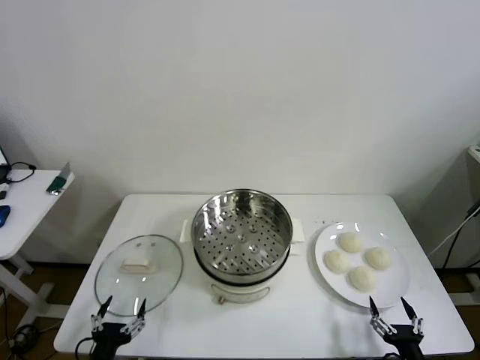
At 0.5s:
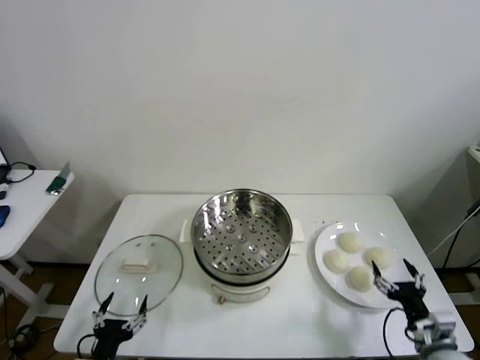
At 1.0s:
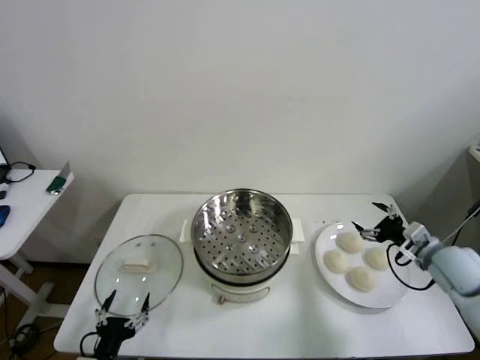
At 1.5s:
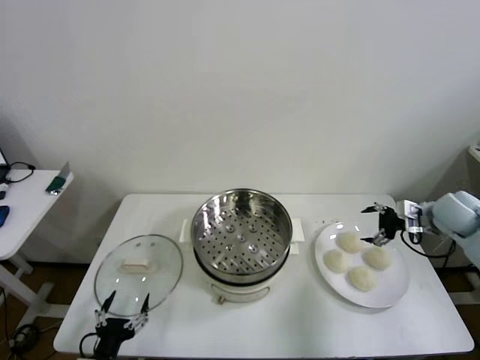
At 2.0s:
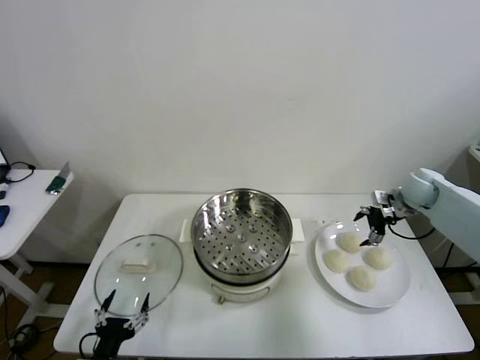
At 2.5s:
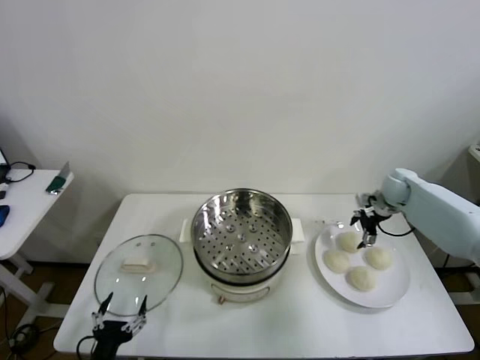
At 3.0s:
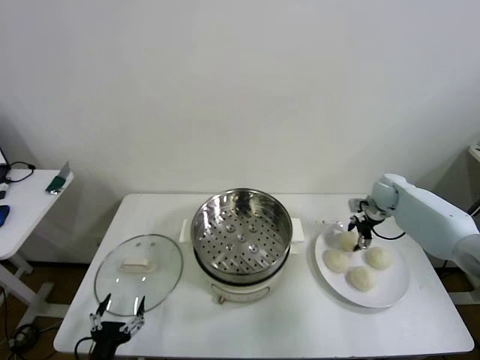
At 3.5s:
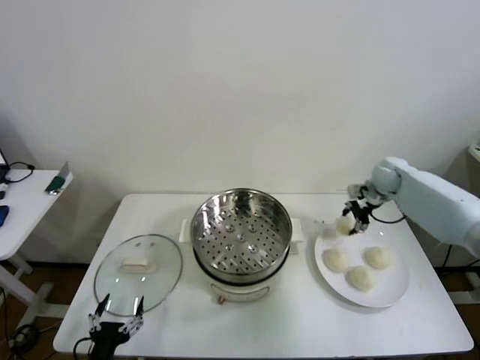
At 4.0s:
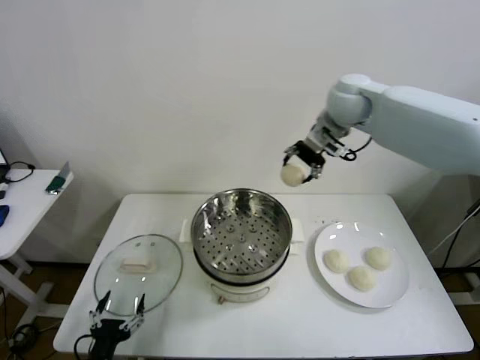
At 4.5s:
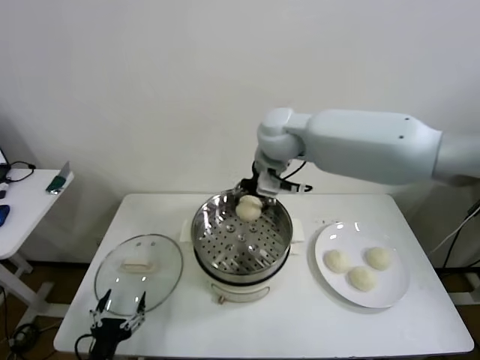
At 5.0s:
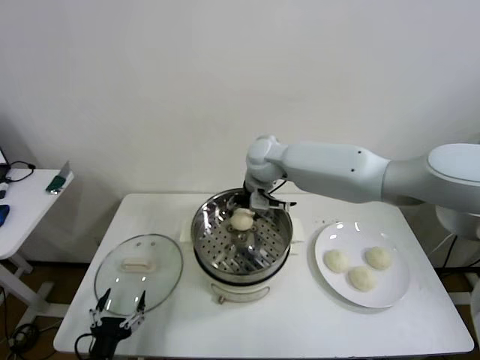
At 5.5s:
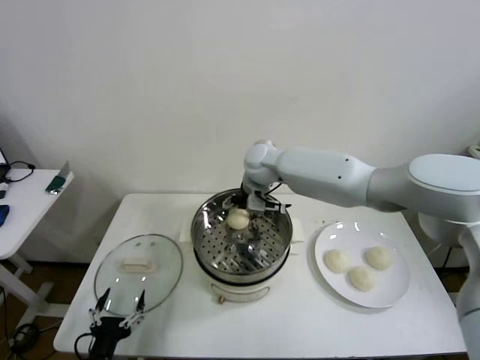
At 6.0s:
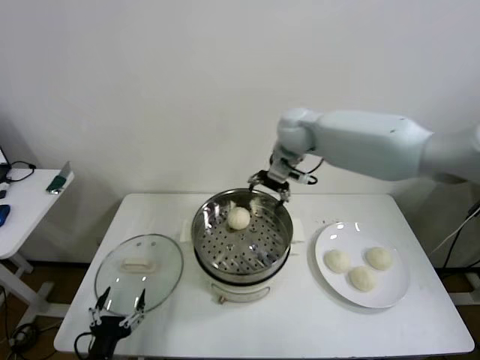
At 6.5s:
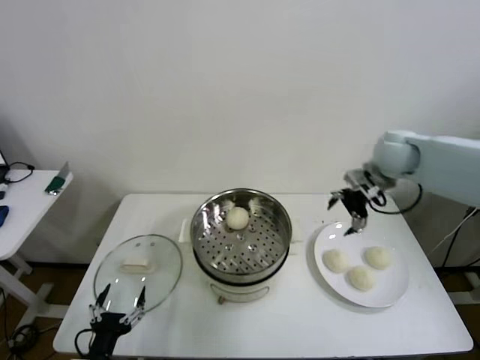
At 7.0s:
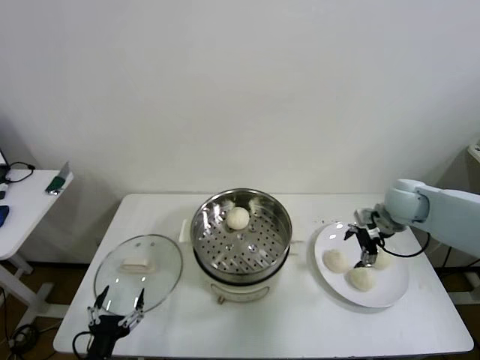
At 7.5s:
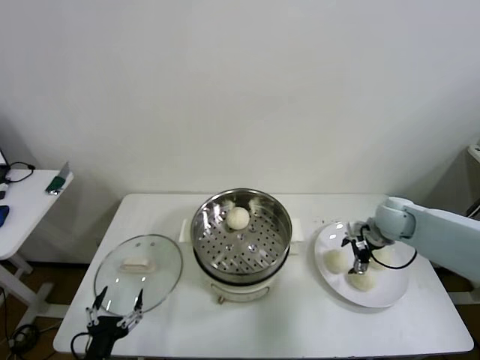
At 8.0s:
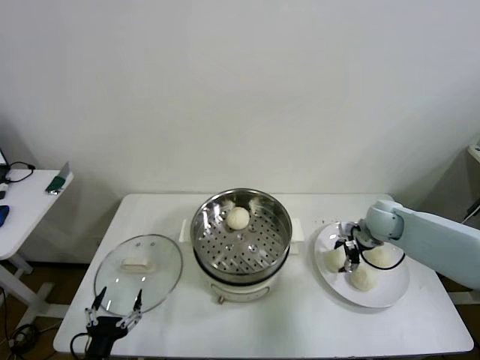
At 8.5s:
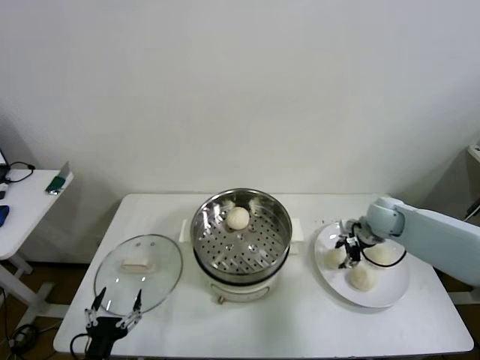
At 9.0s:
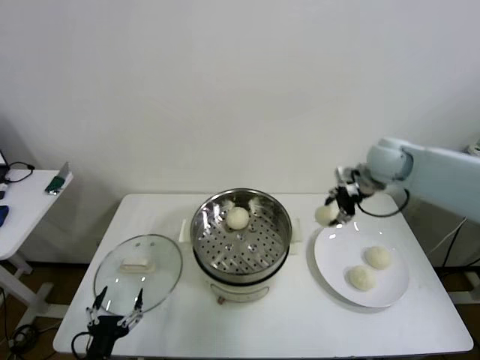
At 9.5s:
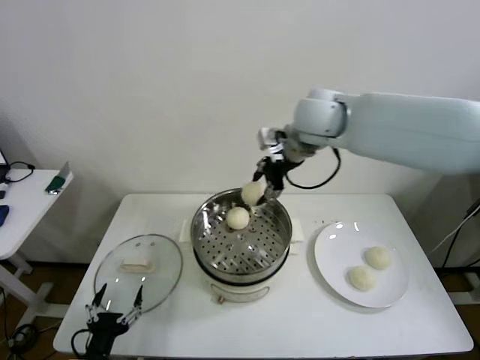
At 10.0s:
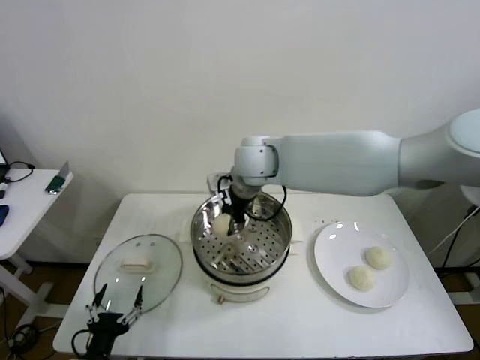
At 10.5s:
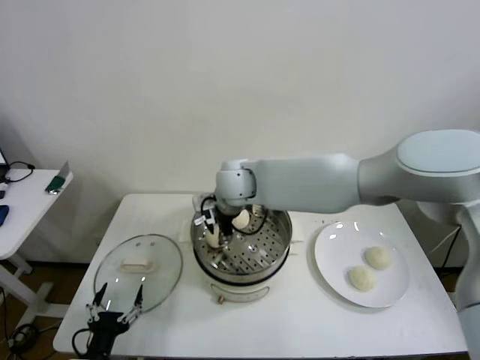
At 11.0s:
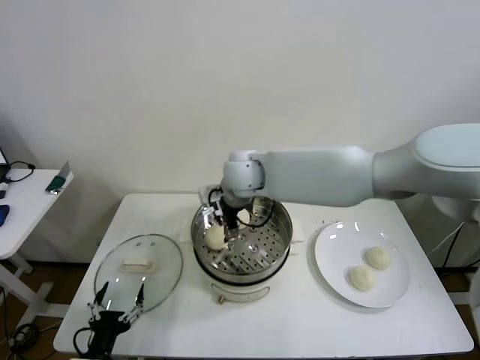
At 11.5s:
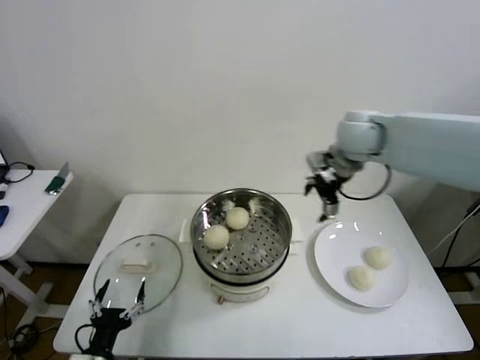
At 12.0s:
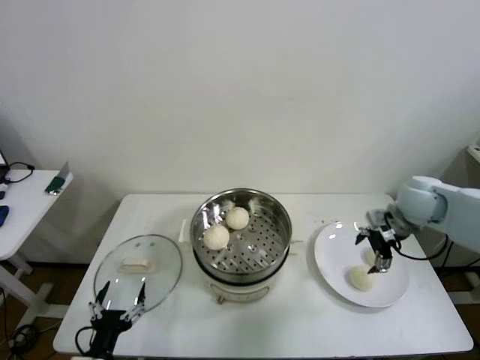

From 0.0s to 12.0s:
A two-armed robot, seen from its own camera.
Step, from 0.0s to 3.0s: Grasp the baozi in the plate with right gripper.
Step, from 3.5s to 5.5s: Place the baozi on the steamer with right gripper.
Step, from 6.0s to 8.0s: Grasp the baozi in the plate with right gripper.
Step, from 8.5s to 11.0s: Place the baozi on the steamer with right gripper.
From 2.0s to 4.0s: The right gripper goes some 35 cm to the left and upward, and closes its fingers.
From 4.0s to 6.0s: The right gripper moves downward, about 5 cm, and opens up.
From 6.0s to 8.0s: The right gripper shifts about 30 cm downward and to the right, and closes its fingers.
From 8.0s to 10.0s: The right gripper moves to the left and upward, roughly 40 cm, and closes its fingers.
From 10.0s to 12.0s: The right gripper goes roughly 35 cm to the right, and opens up.

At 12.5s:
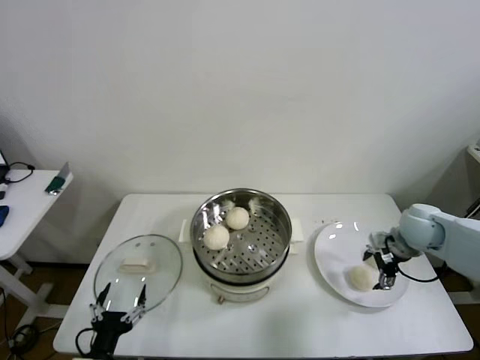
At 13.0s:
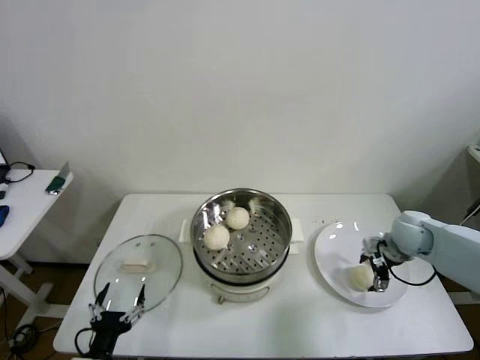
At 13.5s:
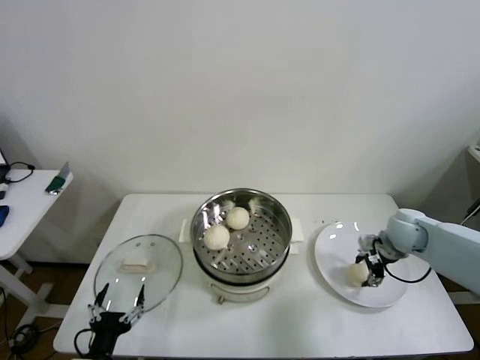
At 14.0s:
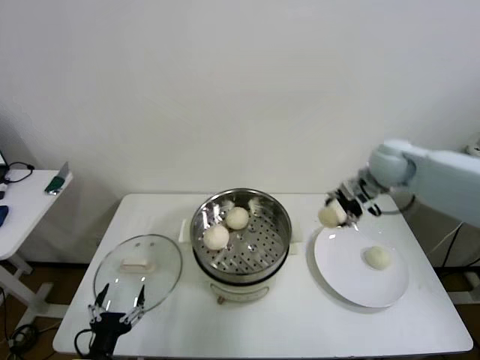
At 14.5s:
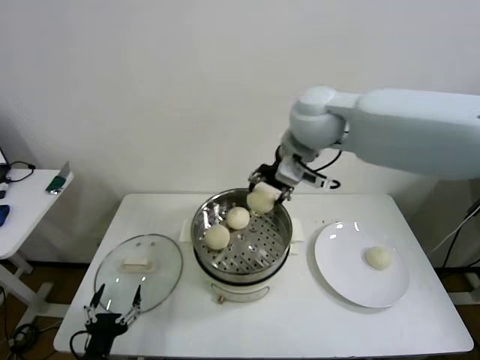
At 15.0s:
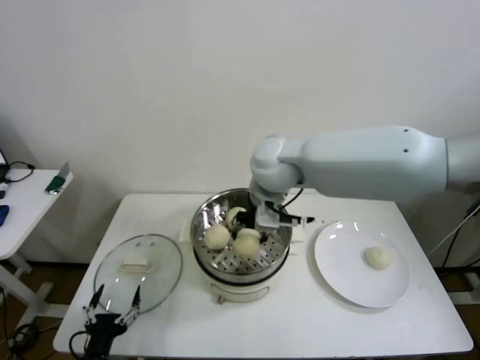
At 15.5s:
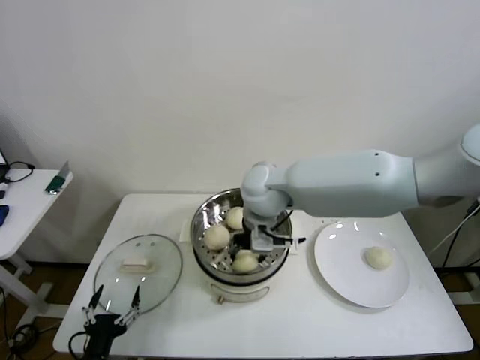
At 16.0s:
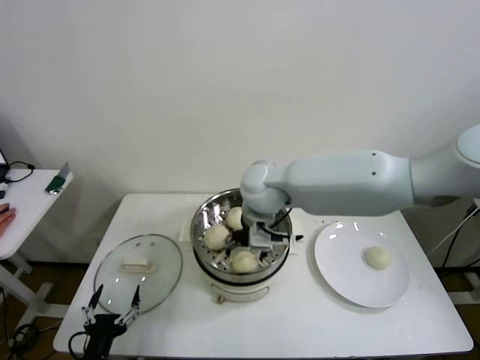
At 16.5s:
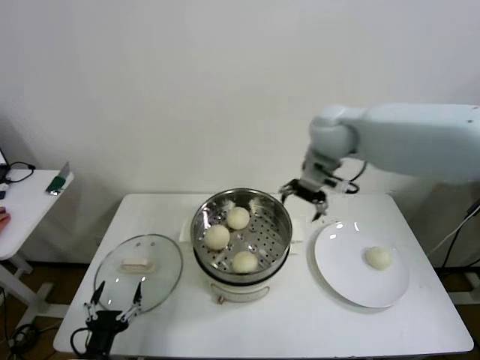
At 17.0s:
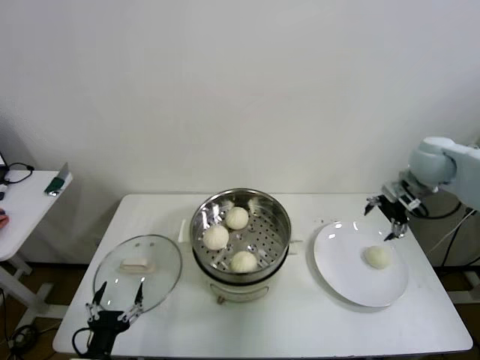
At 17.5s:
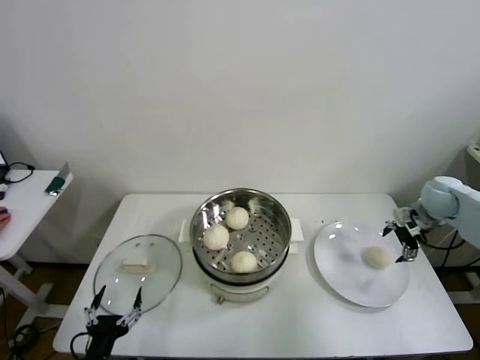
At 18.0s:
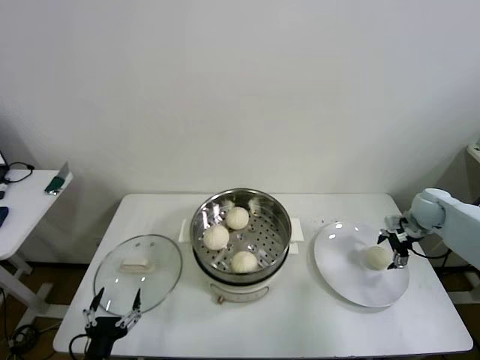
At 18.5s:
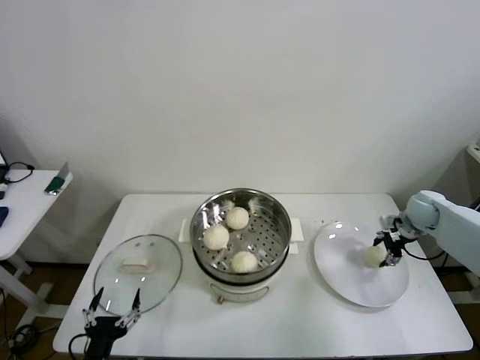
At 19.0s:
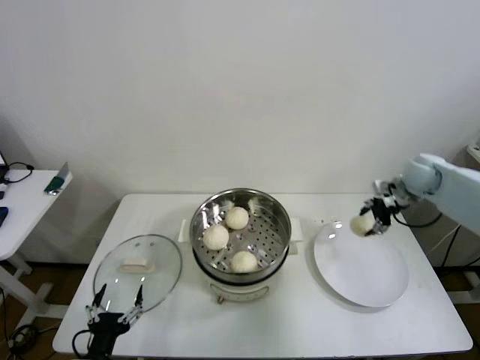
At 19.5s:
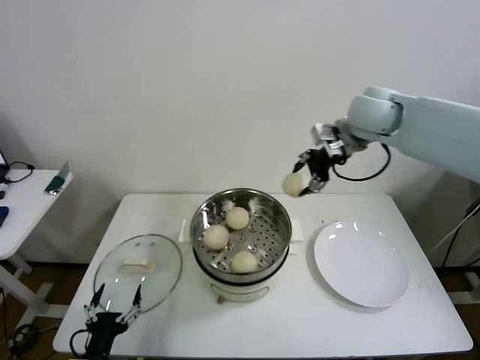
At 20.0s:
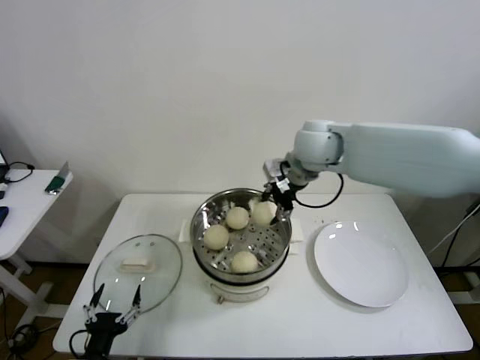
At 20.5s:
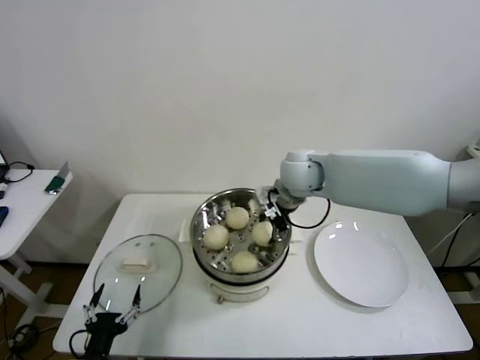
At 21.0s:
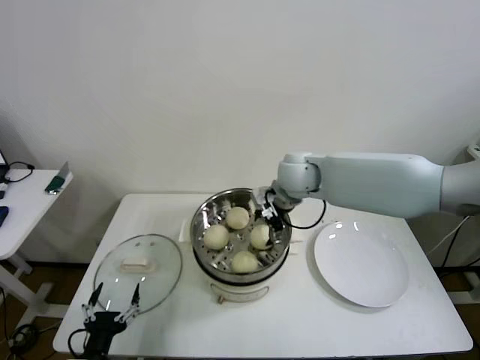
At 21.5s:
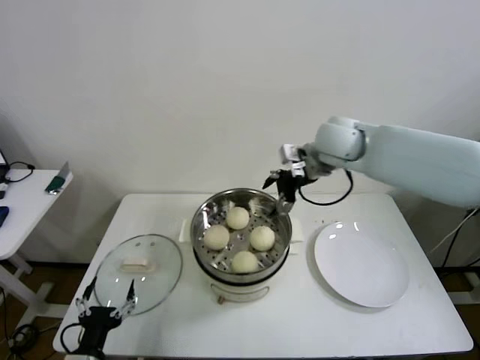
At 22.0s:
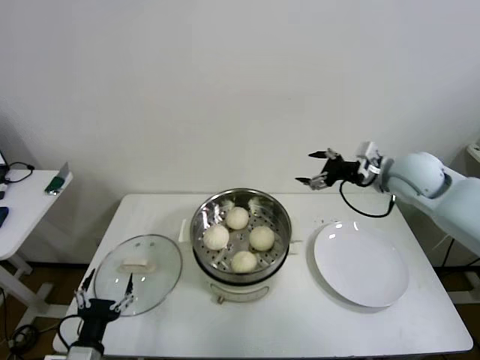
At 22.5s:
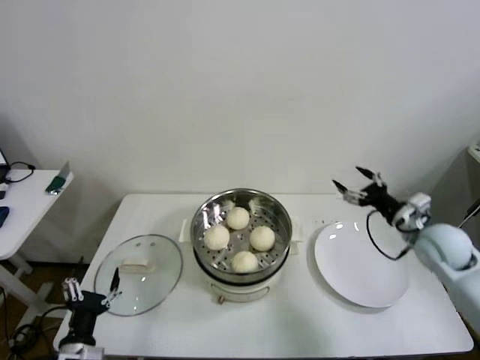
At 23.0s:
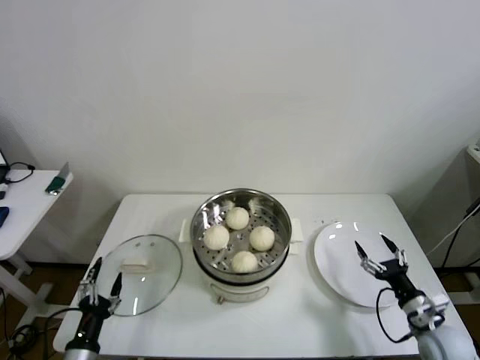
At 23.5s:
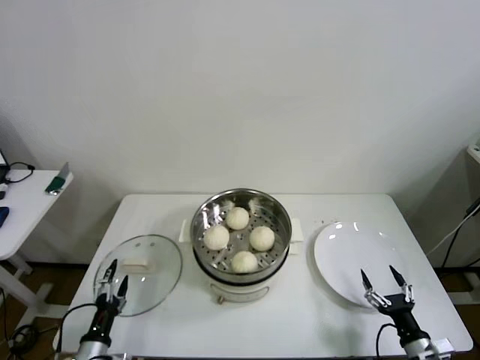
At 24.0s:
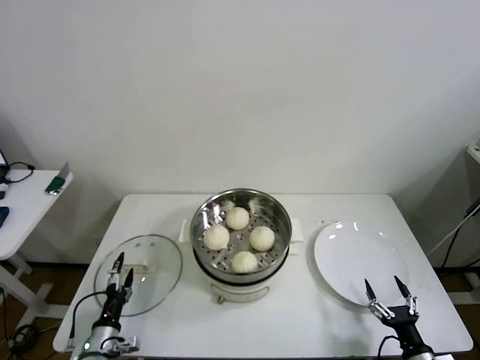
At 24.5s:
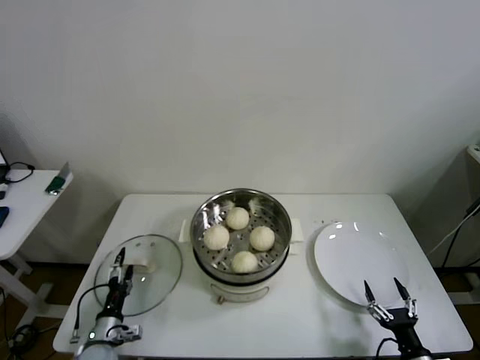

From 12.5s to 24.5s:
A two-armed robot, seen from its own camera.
Step, from 13.5s to 16.0s: Place the baozi on the steamer with right gripper.
Step, from 16.5s to 18.5s: Grasp the baozi in the plate with right gripper.
Step, from 19.0s to 21.0s: Place the baozi on the steamer with right gripper.
From 12.5s to 14.5s: The right gripper heads to the left and upward, covering approximately 40 cm, and closes up.
From 14.5s to 16.5s: The right gripper heads to the right, covering roughly 5 cm, and opens up.
From 16.5s to 18.5s: The right gripper heads to the right and downward, covering about 40 cm, and closes up.
From 18.5s to 20.5s: The right gripper moves to the left and upward, some 40 cm.
From 20.5s to 22.5s: The right gripper moves to the right, approximately 30 cm, and opens up.
From 22.5s to 24.5s: The right gripper travels backward and downward by roughly 35 cm. The left gripper travels downward and forward by about 15 cm.

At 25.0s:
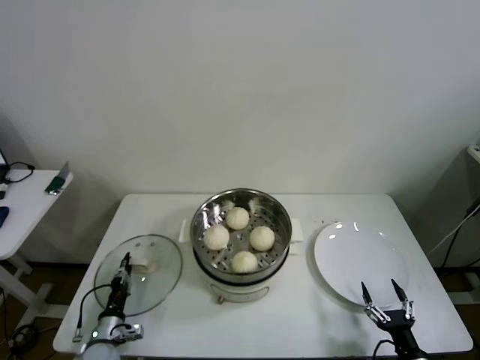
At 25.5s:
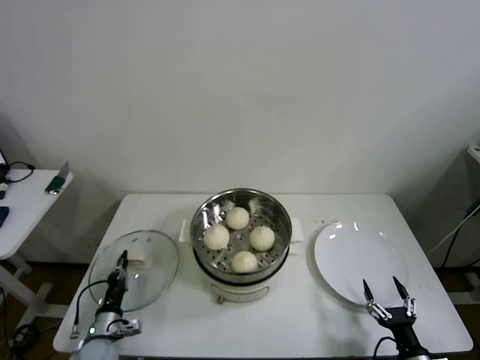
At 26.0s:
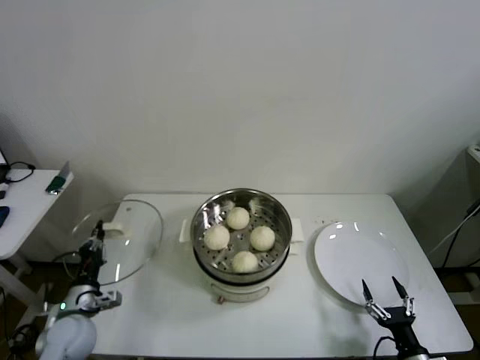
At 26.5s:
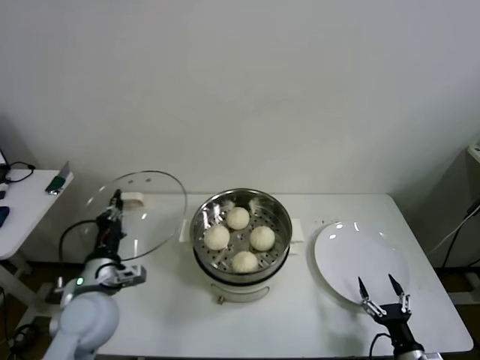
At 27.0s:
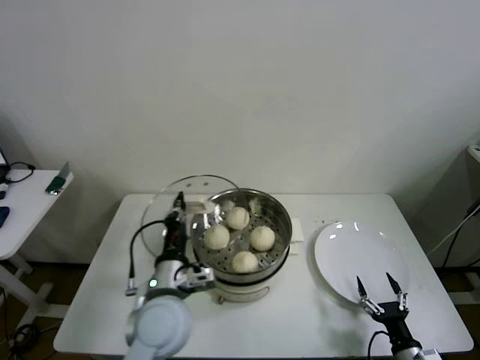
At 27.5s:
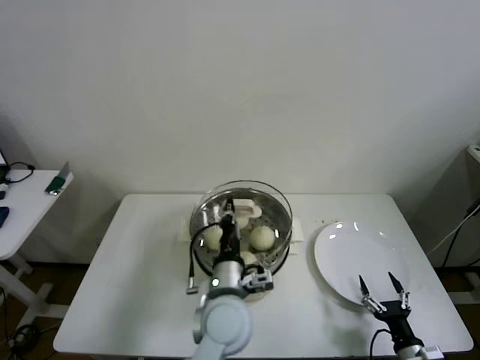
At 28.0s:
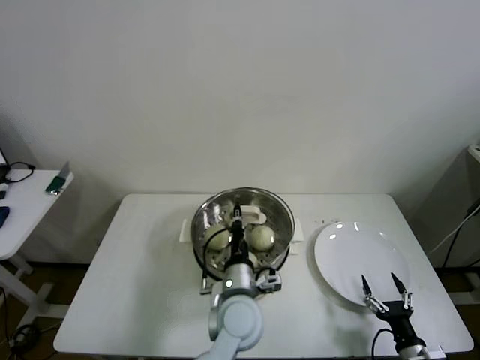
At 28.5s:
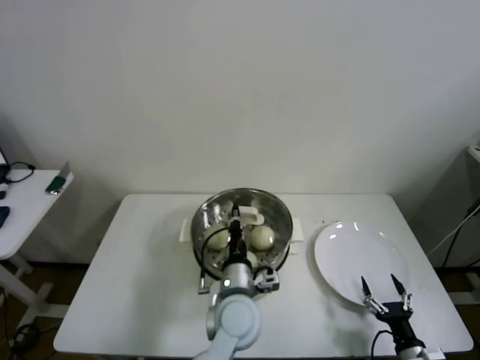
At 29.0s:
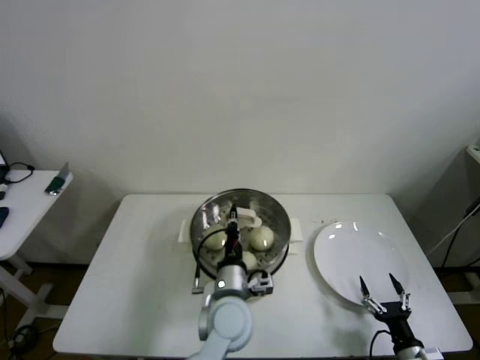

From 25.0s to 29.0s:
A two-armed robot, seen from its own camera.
From 25.0s to 27.0s: The left gripper heads upward and to the right, covering roughly 30 cm, and closes up.
From 27.0s to 29.0s: The left gripper moves to the right and downward, approximately 15 cm.
